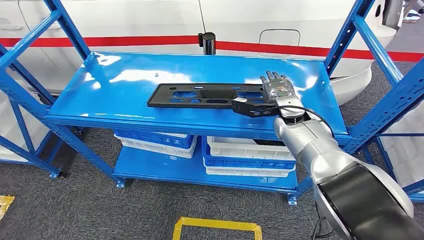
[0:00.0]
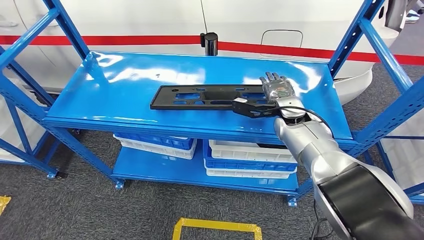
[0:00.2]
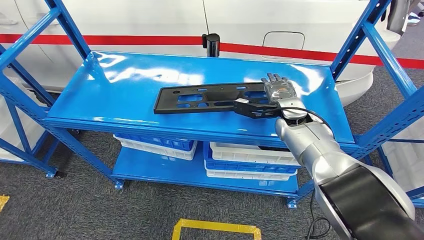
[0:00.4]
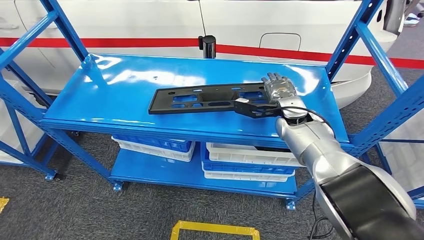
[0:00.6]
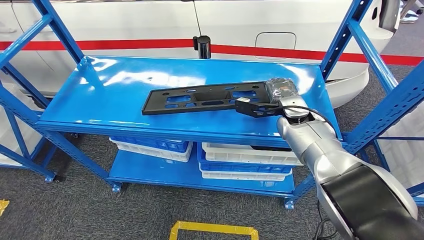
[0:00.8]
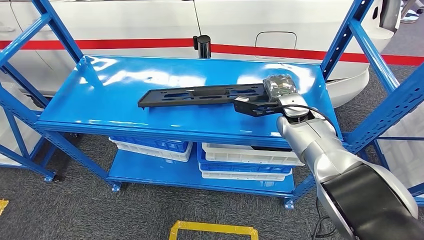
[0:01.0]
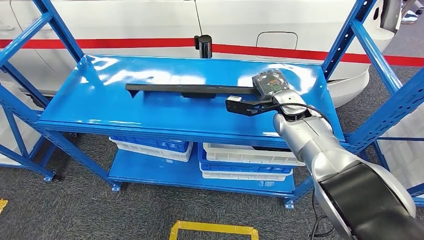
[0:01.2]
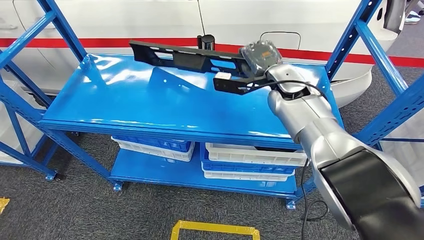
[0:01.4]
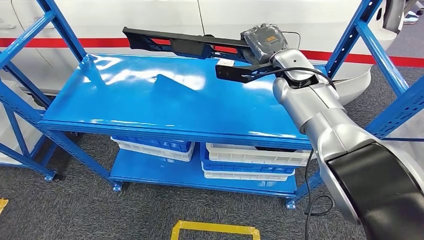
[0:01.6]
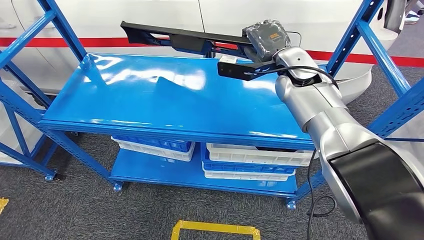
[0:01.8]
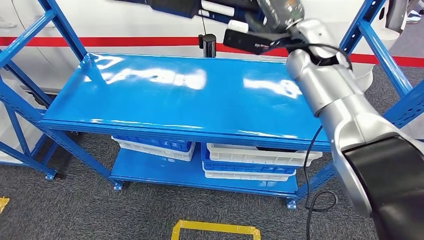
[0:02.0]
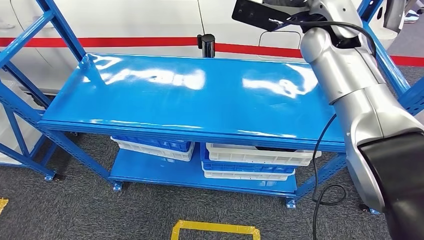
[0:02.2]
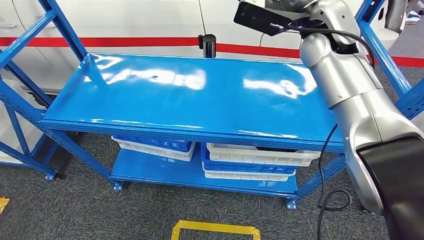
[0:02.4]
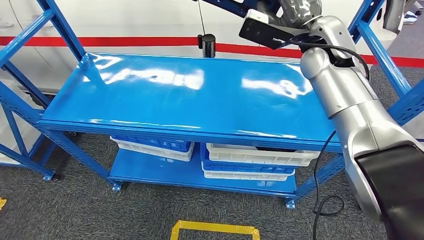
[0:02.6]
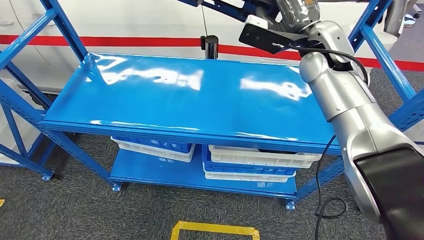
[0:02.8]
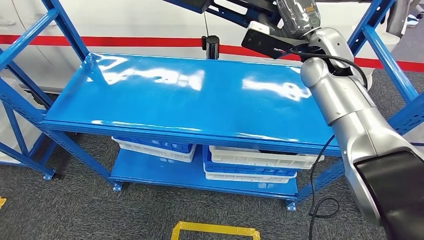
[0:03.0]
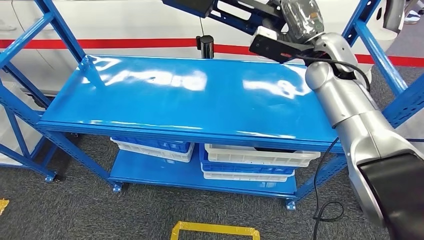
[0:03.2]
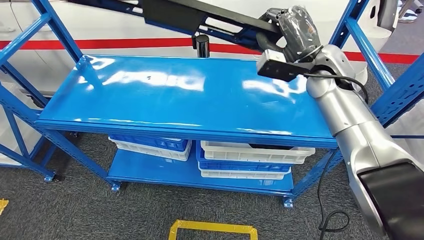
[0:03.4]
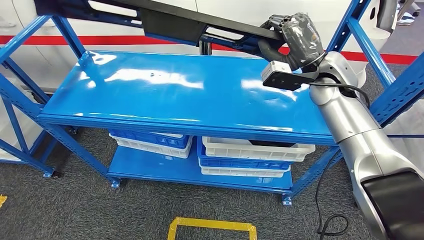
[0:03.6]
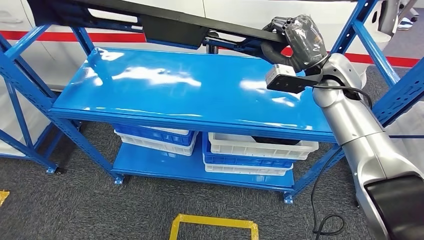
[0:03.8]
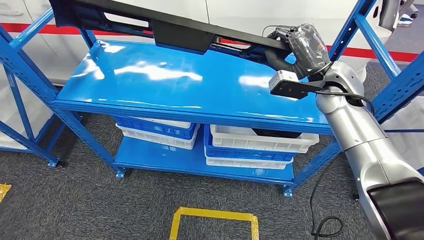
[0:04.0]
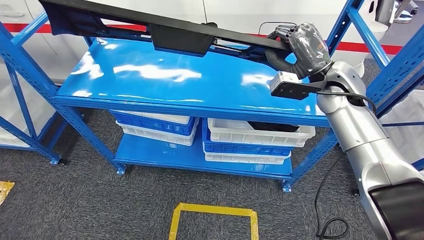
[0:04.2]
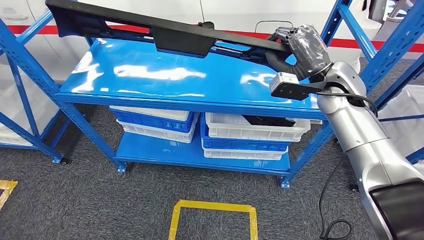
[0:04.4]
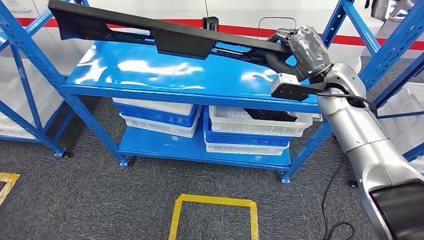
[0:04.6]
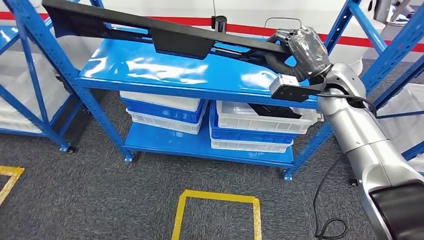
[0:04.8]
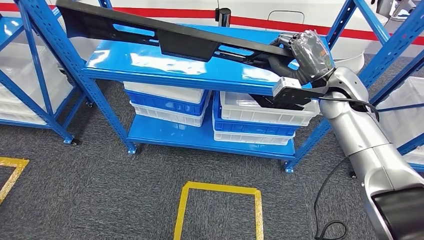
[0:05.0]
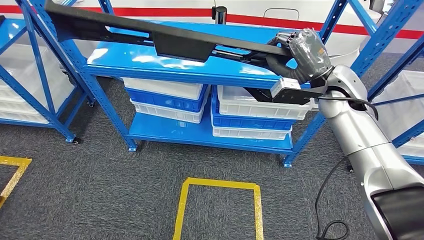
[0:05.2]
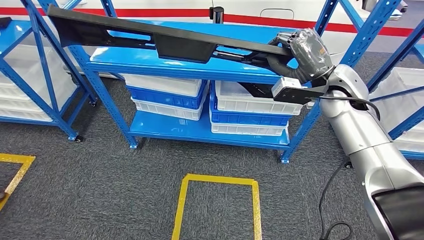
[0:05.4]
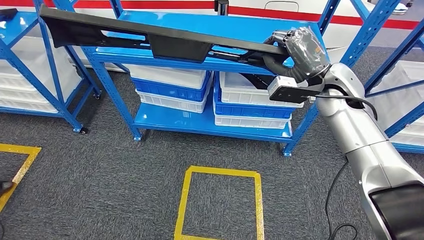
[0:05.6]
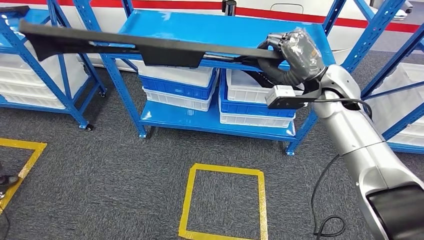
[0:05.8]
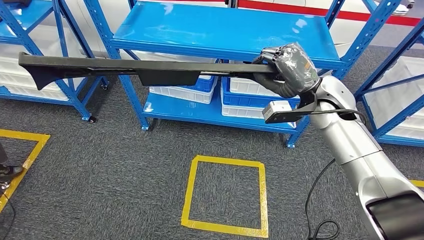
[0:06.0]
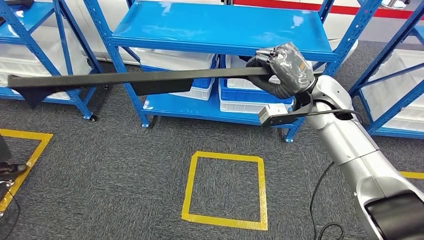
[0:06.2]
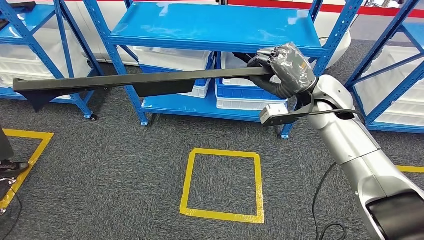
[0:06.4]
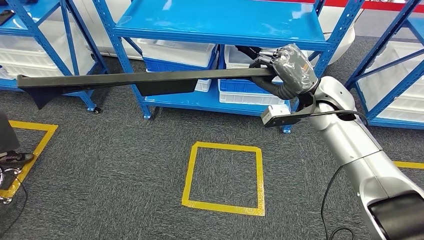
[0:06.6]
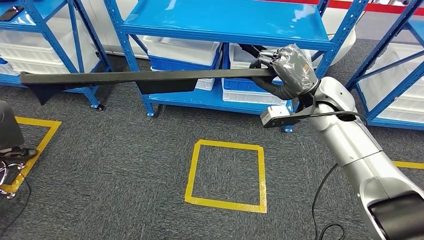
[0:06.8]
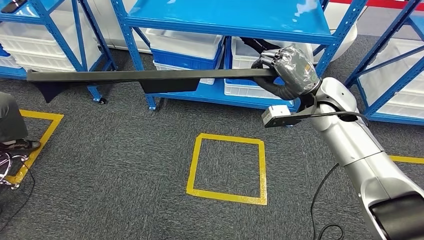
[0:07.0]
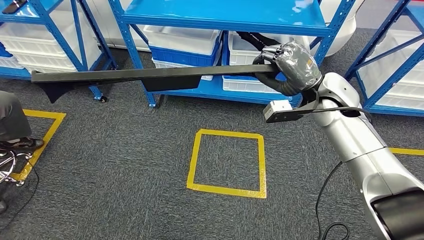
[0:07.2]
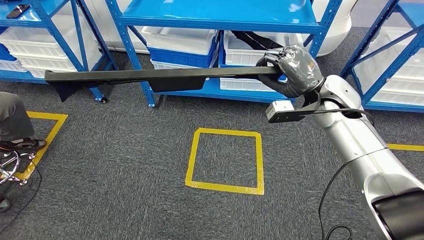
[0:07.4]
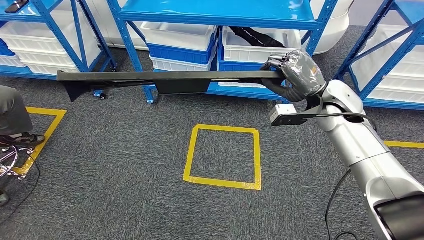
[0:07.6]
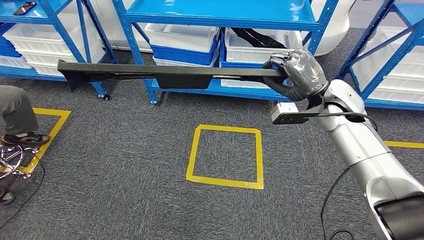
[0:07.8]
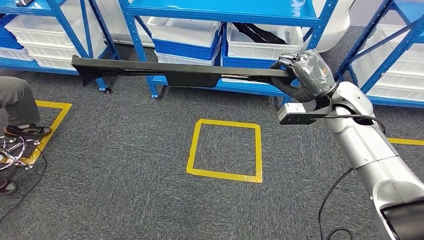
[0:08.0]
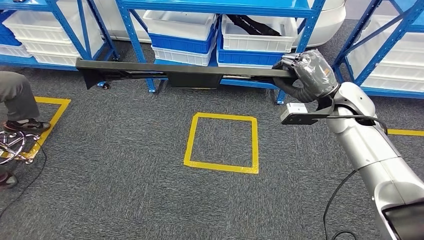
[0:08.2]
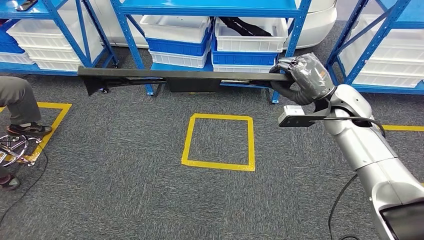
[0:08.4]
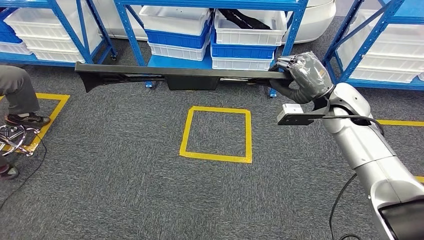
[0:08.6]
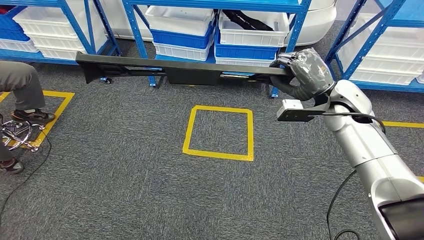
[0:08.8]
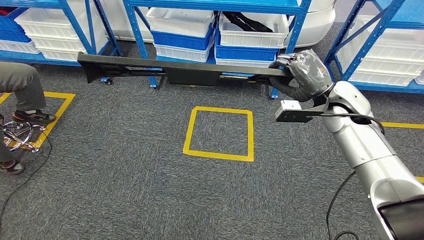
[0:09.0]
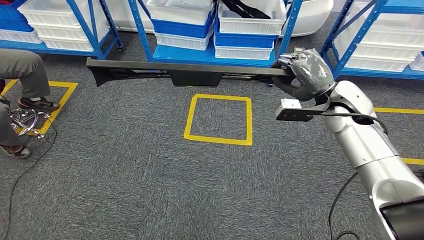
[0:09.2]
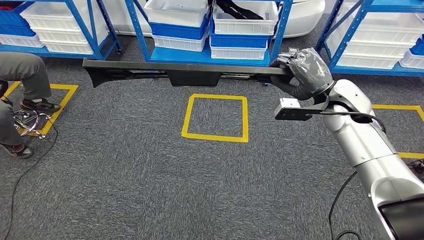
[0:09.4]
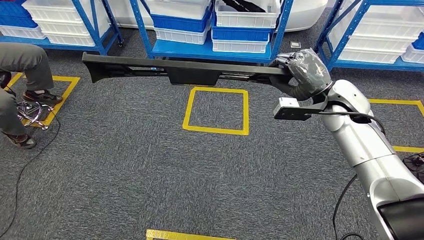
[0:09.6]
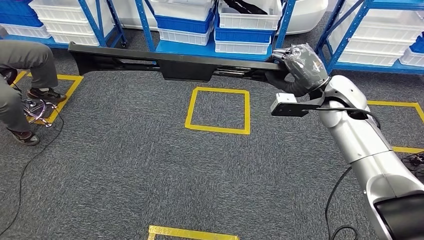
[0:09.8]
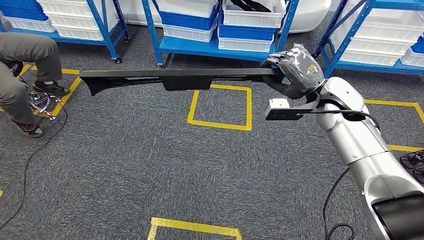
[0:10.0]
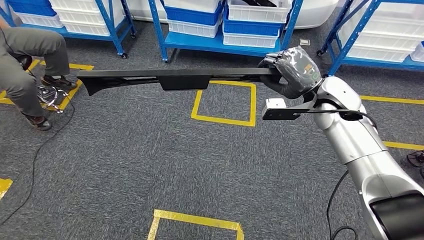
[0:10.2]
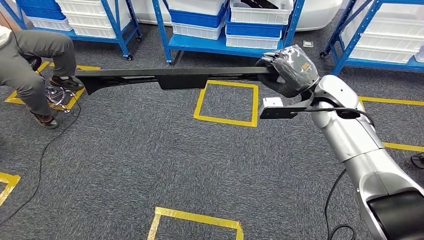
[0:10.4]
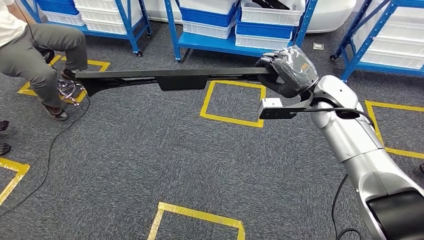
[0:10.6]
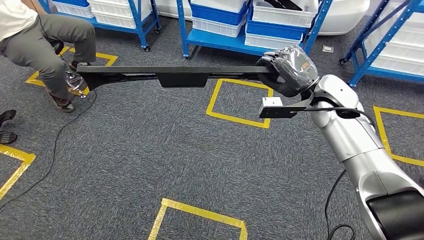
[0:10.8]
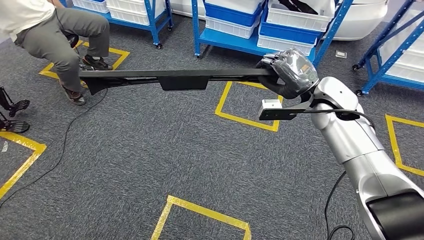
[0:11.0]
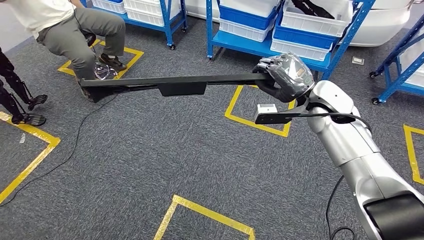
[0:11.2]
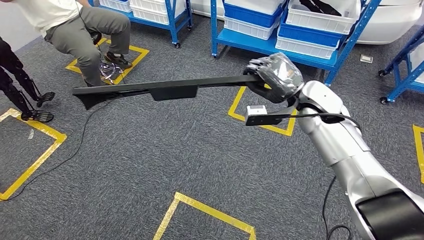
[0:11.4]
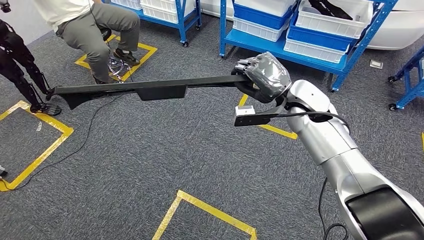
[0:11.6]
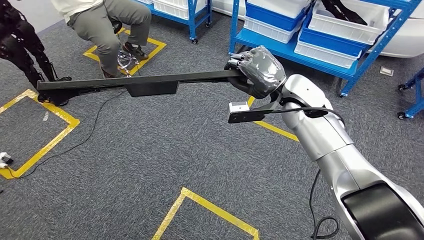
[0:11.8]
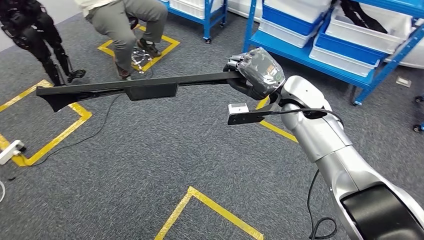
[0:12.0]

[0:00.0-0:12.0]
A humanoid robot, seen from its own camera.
Step, 0:00.0 to 0:05.4: Pick up the large material from the shelf.

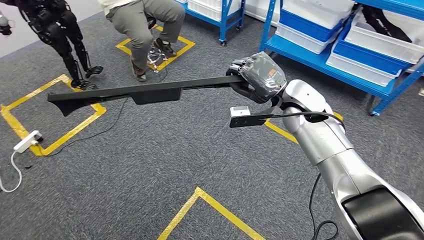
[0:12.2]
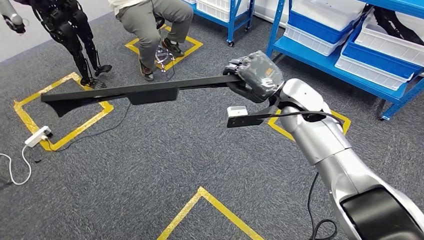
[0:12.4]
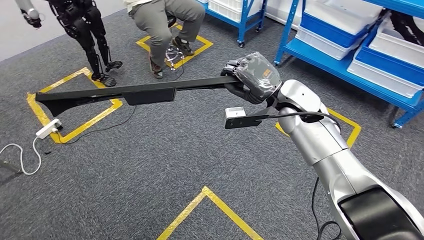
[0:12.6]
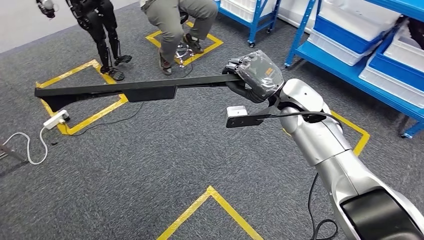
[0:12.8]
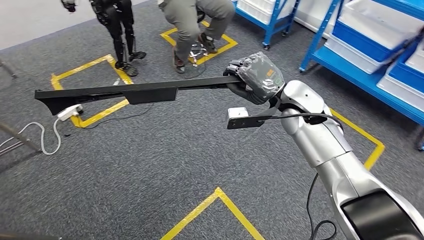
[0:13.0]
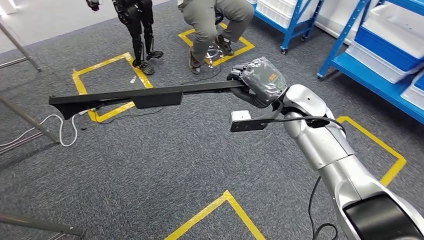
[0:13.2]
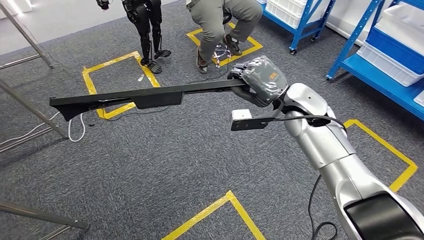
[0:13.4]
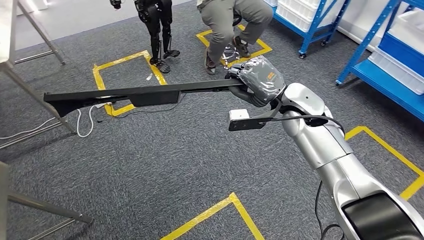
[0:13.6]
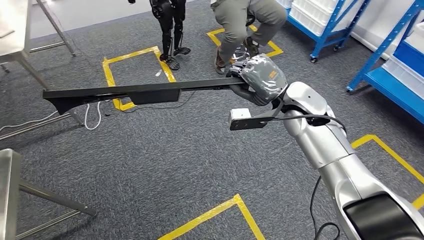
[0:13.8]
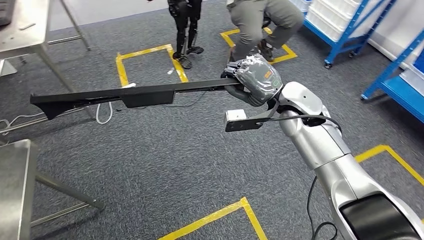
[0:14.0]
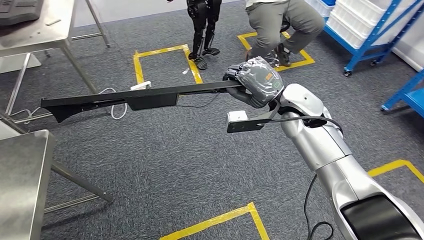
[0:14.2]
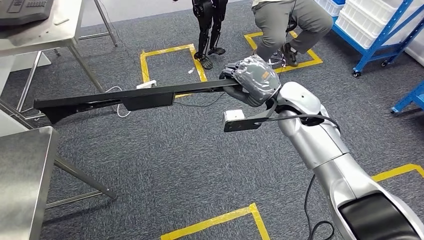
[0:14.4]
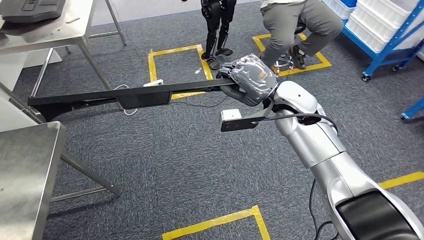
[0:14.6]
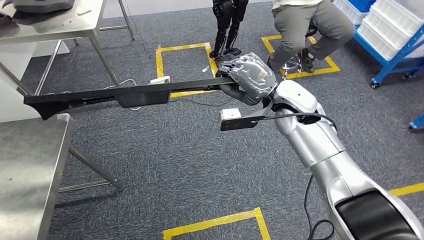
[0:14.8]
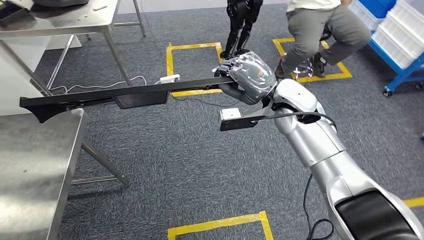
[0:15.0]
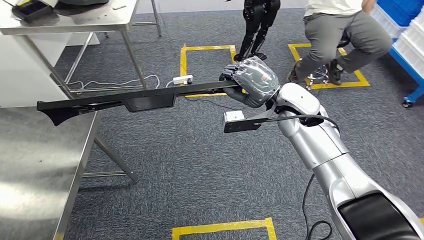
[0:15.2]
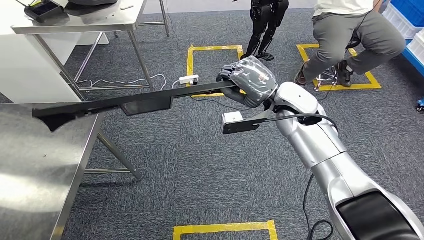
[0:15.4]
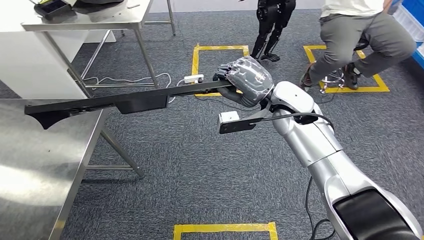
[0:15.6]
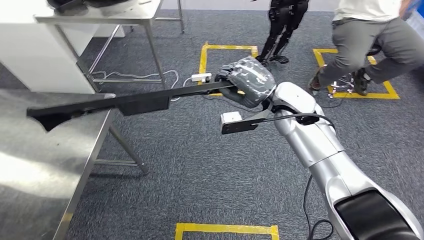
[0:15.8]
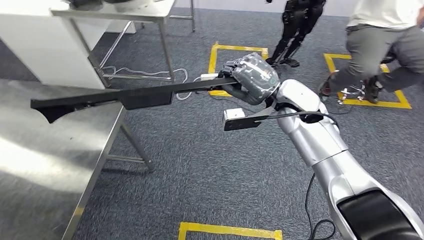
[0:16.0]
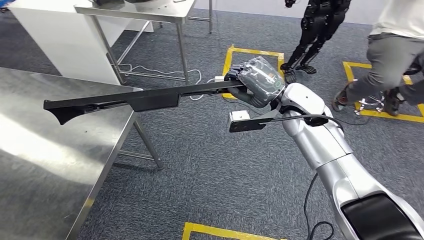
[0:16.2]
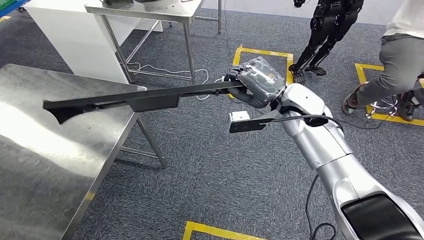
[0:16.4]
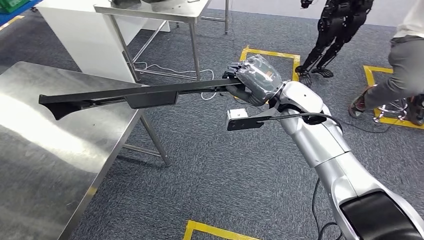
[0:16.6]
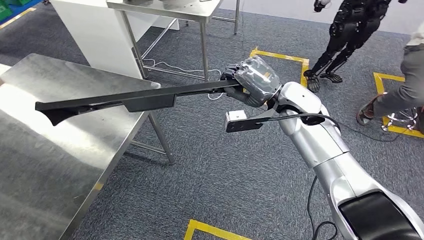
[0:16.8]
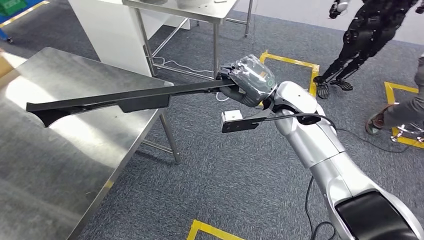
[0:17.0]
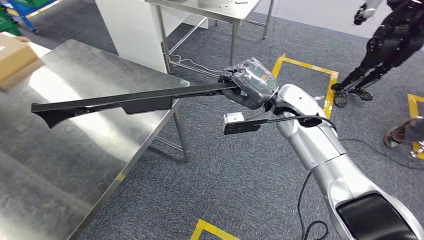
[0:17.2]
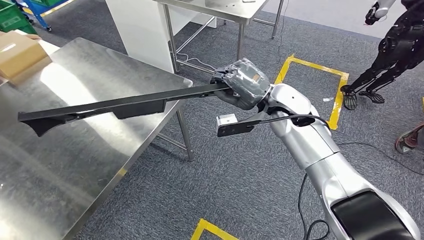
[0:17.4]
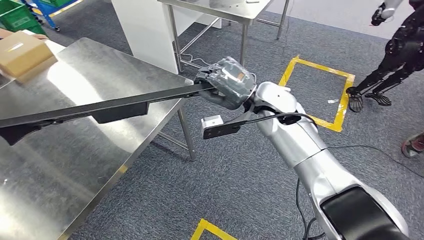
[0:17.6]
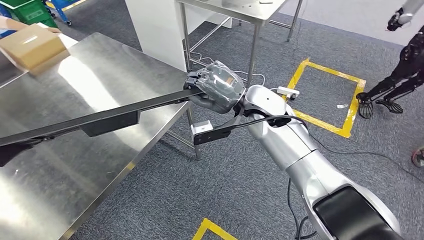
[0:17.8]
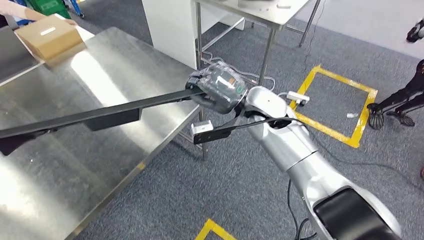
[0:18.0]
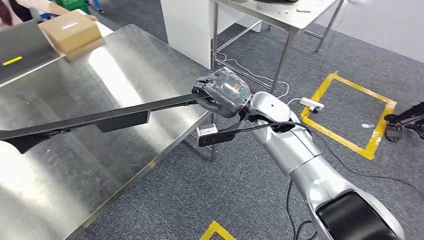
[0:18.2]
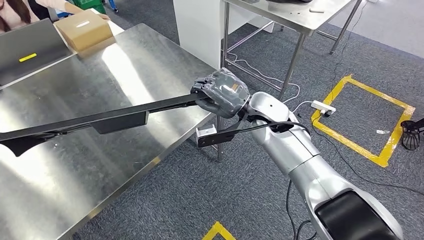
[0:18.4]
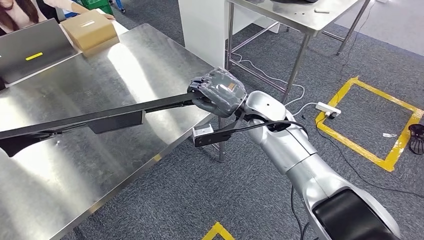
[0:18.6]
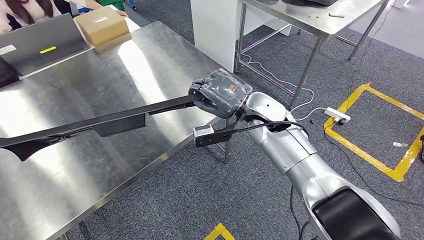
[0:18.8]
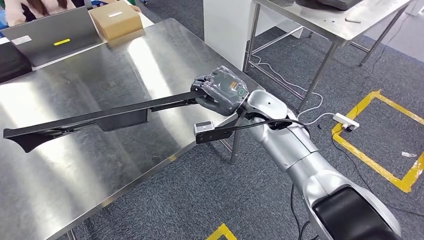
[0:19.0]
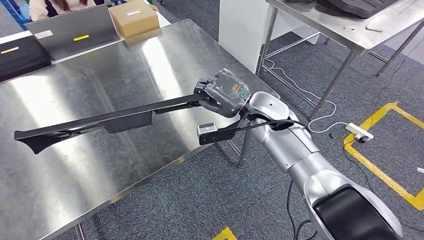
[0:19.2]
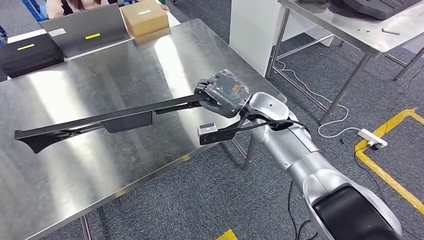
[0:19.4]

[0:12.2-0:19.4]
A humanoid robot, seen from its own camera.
Step, 0:12.2 to 0:17.4: Move the large material to the workbench.
